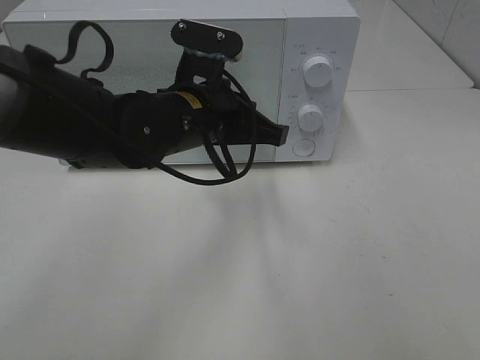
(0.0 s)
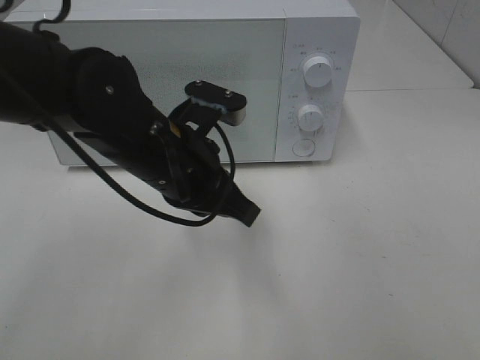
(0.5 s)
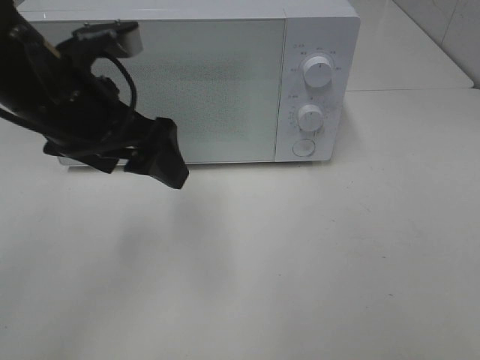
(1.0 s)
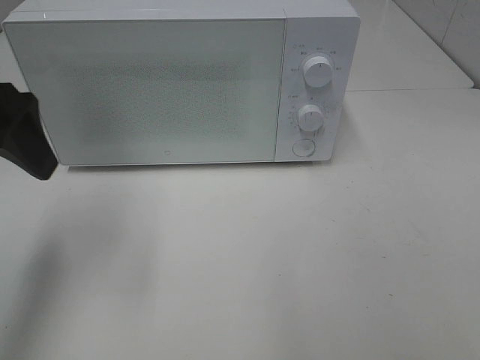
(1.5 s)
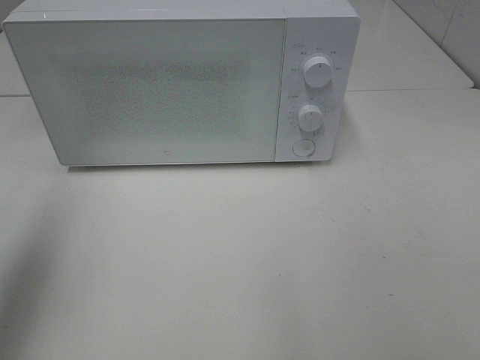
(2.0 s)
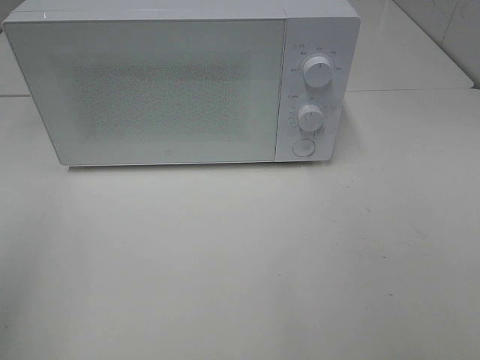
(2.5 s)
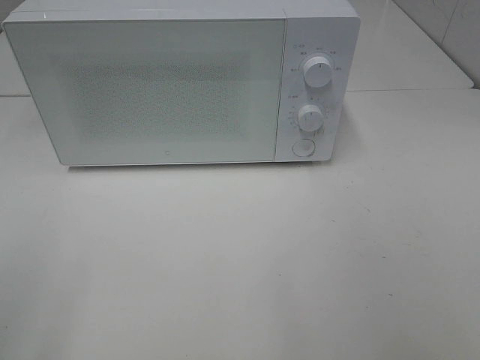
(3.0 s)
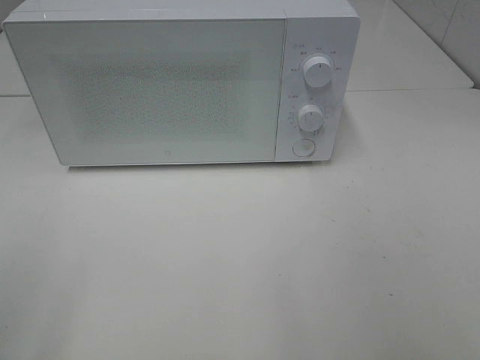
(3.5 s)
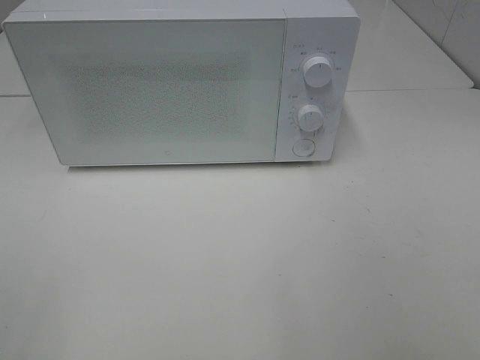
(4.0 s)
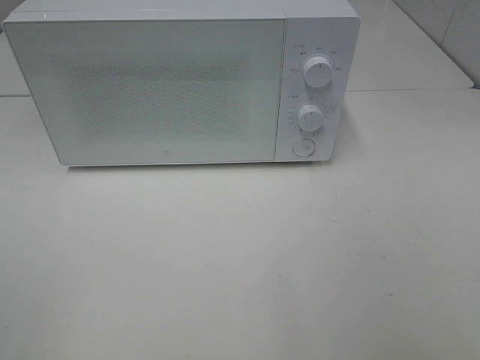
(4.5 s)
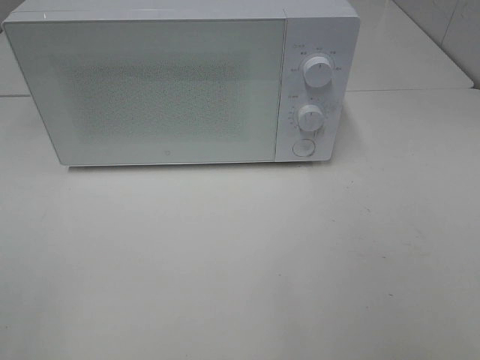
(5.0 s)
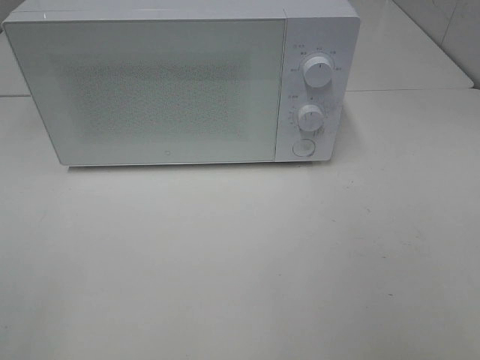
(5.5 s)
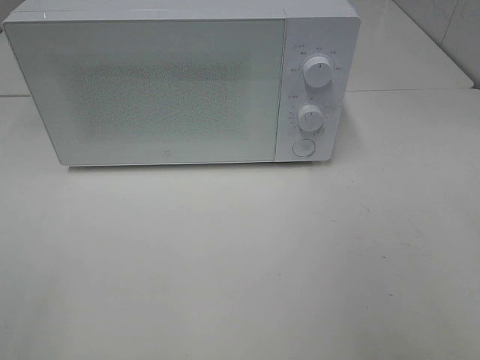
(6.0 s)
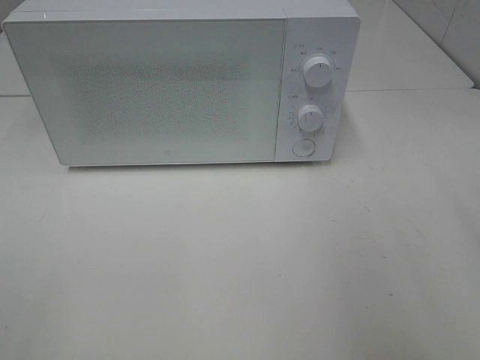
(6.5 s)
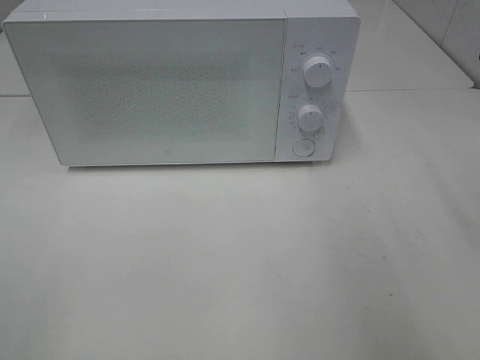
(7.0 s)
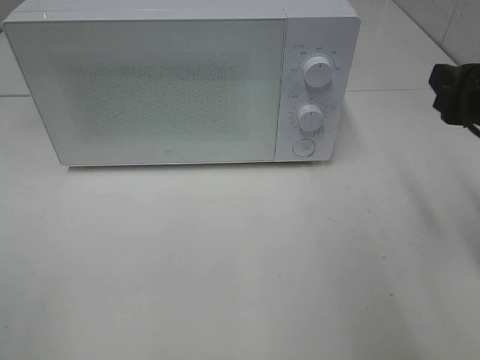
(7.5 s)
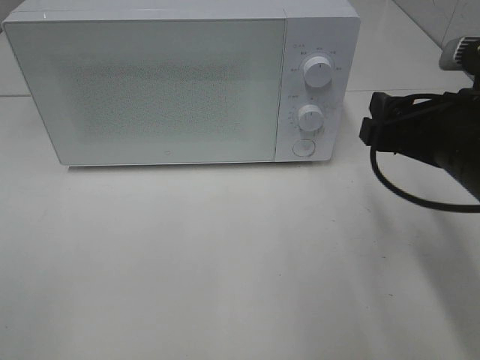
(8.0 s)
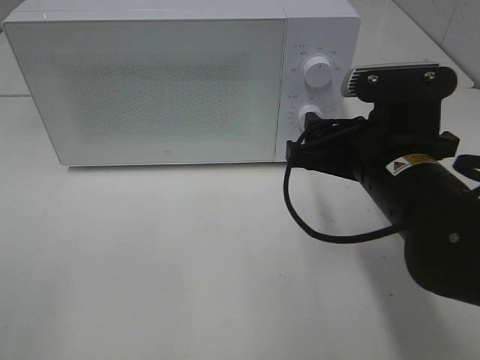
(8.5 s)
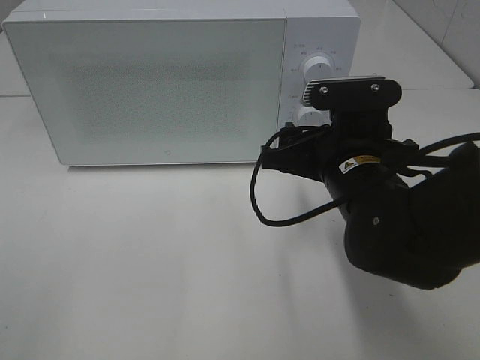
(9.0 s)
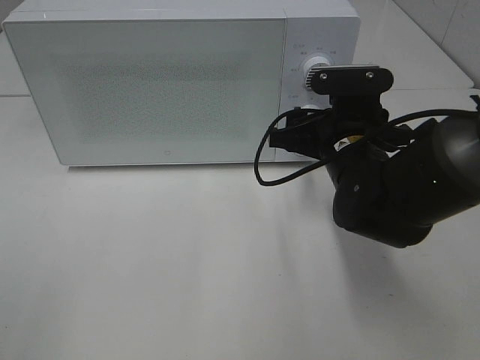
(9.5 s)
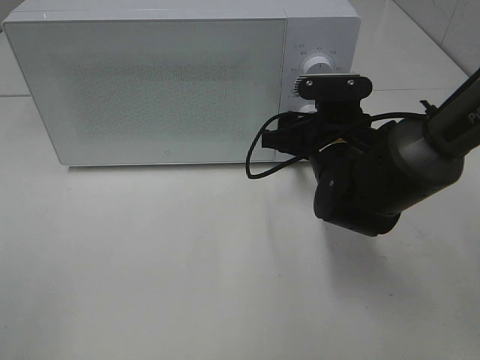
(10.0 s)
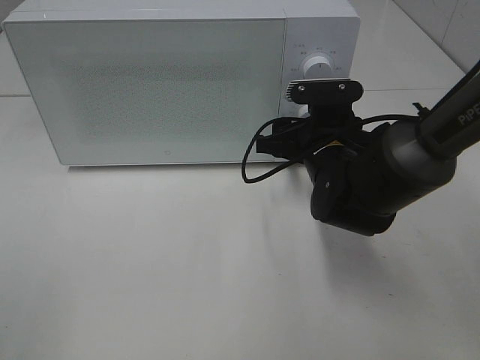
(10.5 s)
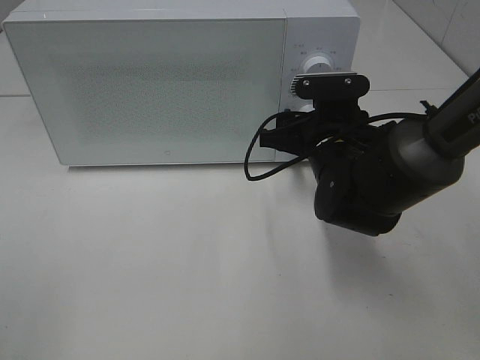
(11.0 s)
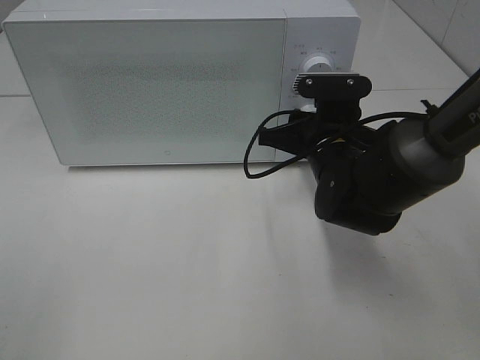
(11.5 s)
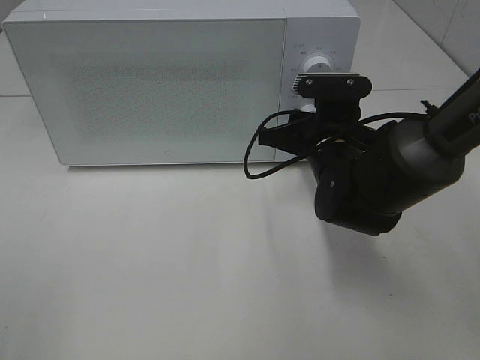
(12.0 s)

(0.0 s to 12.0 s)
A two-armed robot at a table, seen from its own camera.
Task of the whole recording: Heat Sandwich.
0.0 s - 2.0 s: The left gripper shifts approximately 35 cm to the left, upward and backward, and opens up.
2.0 s - 4.0 s: The left gripper heads backward, covering roughly 20 cm.
6.0 s - 8.0 s: The right gripper moves forward, downward and to the left, roughly 20 cm.
8.0 s - 10.0 s: The right gripper travels forward, downward and to the left by roughly 15 cm.
10.0 s - 12.0 s: The two grippers keep their place.

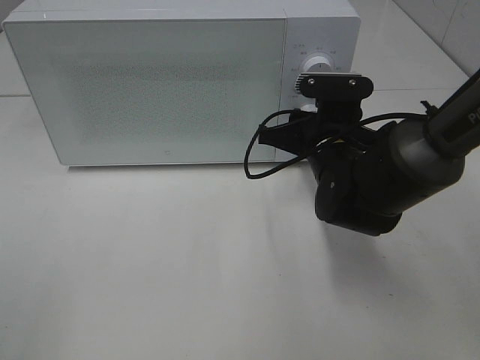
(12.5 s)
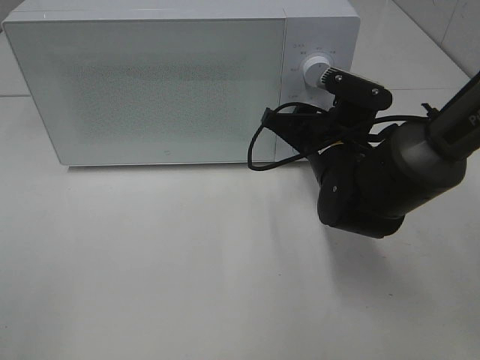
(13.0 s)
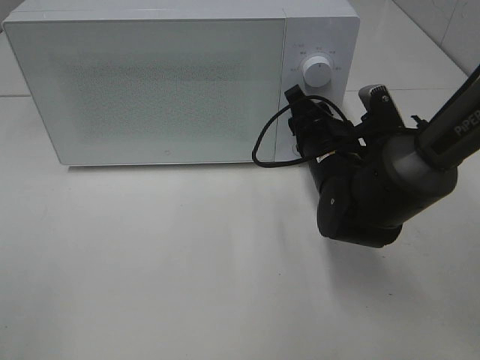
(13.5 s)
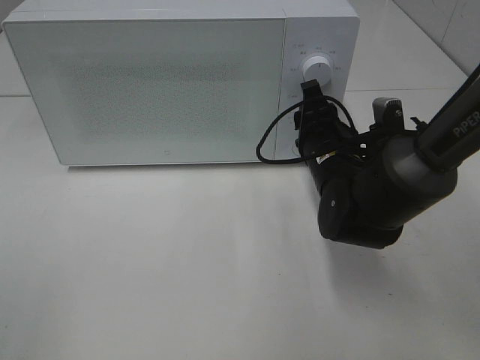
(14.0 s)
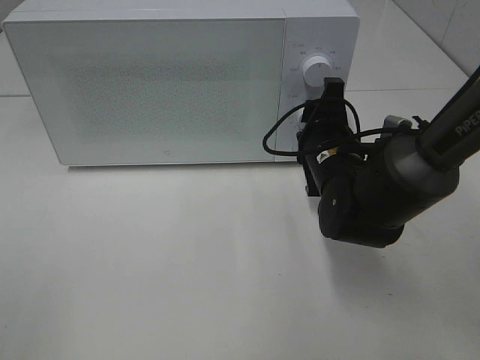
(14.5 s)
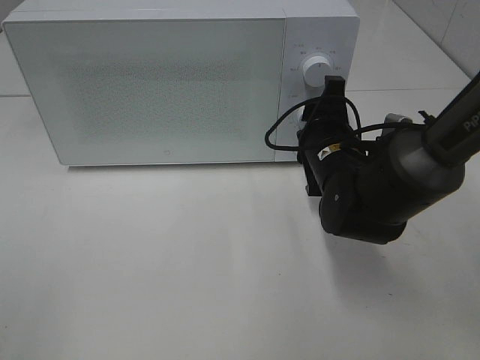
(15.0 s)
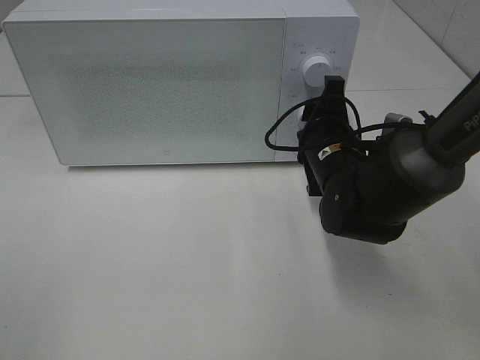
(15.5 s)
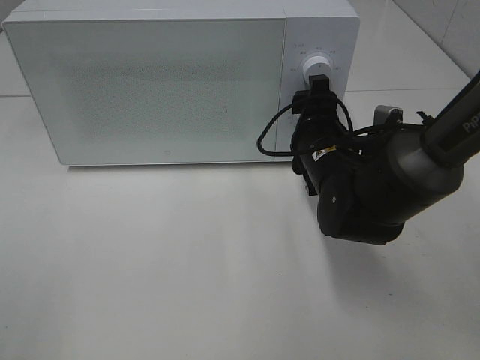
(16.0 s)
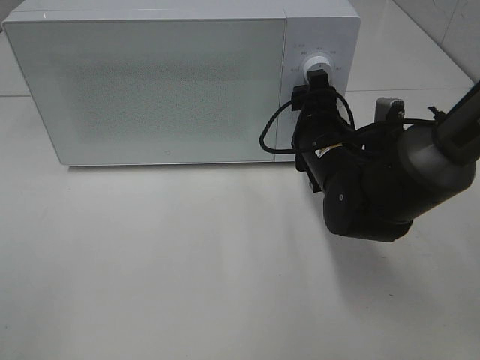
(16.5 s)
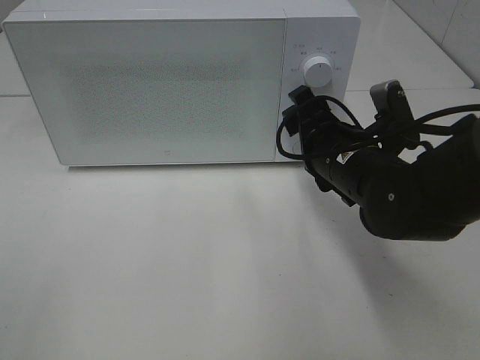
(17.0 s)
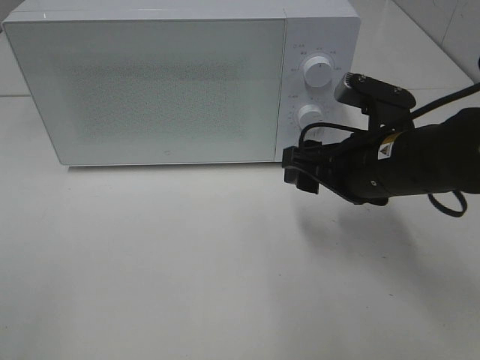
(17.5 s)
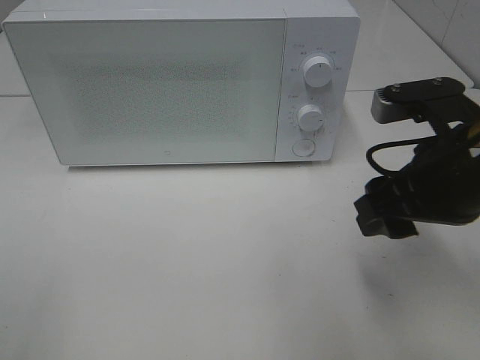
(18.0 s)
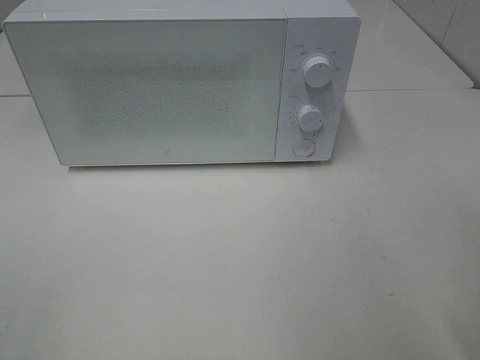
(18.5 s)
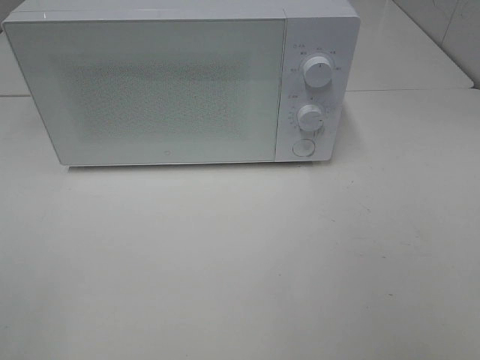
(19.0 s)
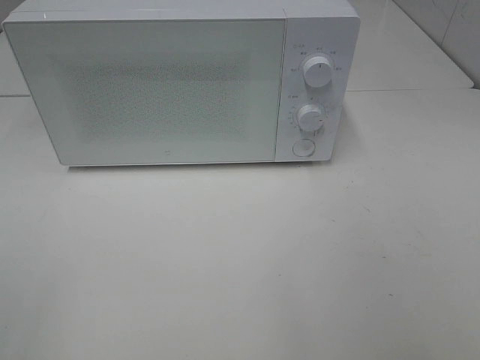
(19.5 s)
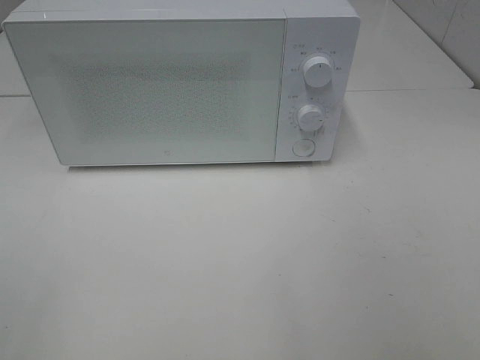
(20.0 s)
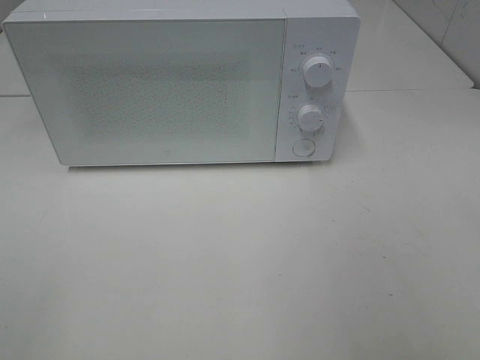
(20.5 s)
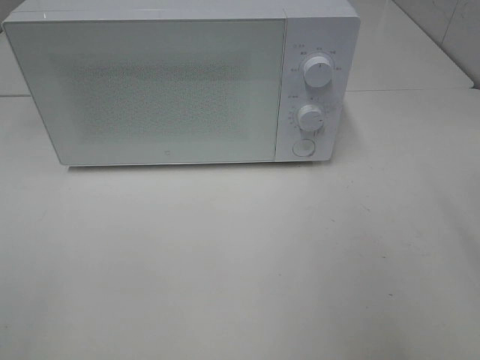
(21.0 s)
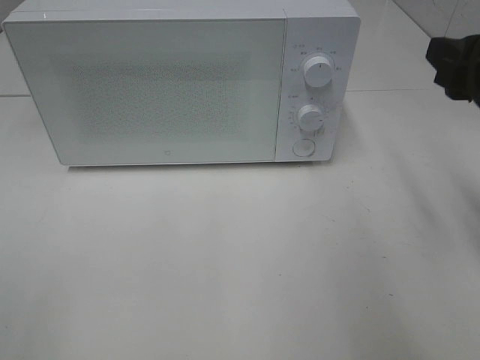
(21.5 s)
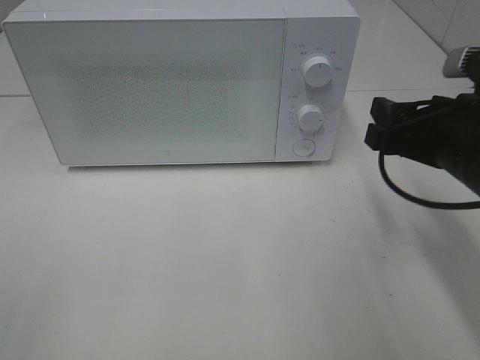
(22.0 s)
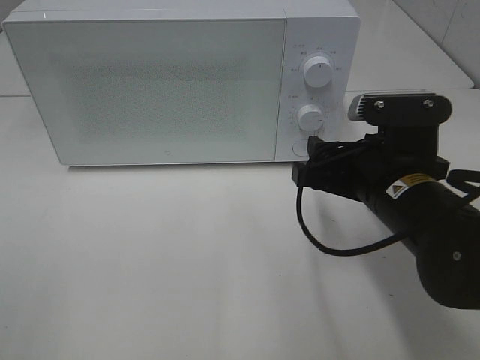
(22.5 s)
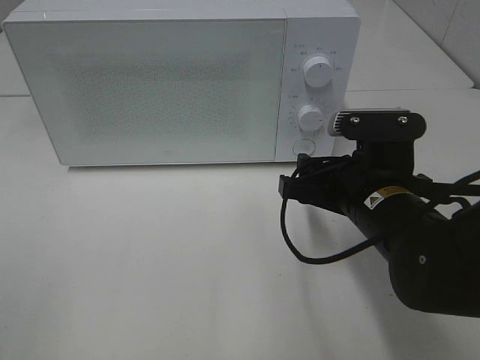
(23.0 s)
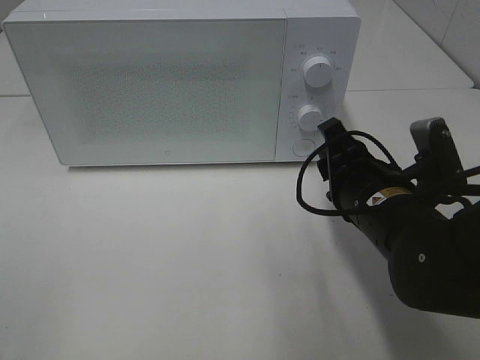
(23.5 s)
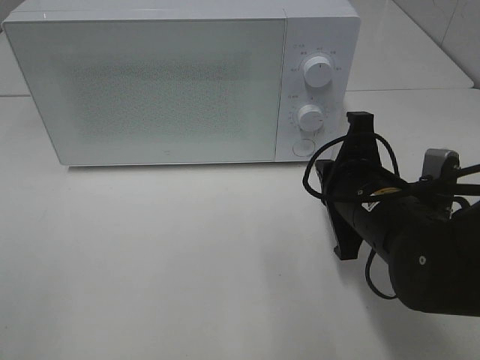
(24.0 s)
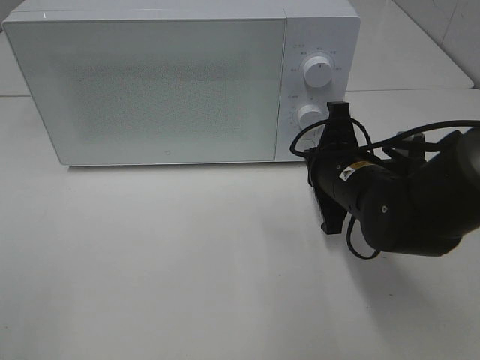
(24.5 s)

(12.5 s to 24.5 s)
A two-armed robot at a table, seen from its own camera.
Task of the whole recording: Heat Sandwich.
Step, 12.5 s - 17.0 s: Right hand: twist timer button.
14.5 s - 16.5 s: The grippers make only small movements.
16.5 s - 18.5 s: The right gripper travels backward, upward and to the right by some 30 cm.
18.5 s - 20.5 s: The right gripper shifts roughly 5 cm backward.
20.5 s - 22.5 s: The right gripper heads forward, downward and to the left, covering approximately 30 cm.
22.5 s - 24.5 s: The right gripper shifts about 5 cm forward, and closes.

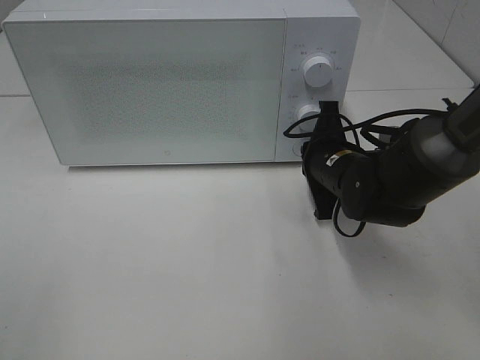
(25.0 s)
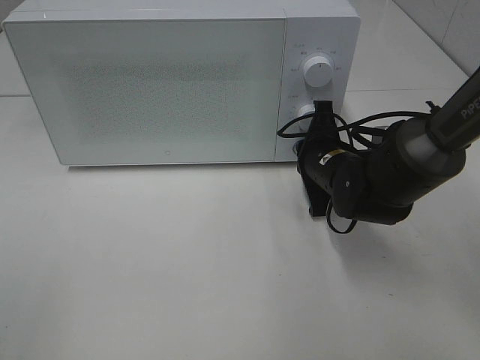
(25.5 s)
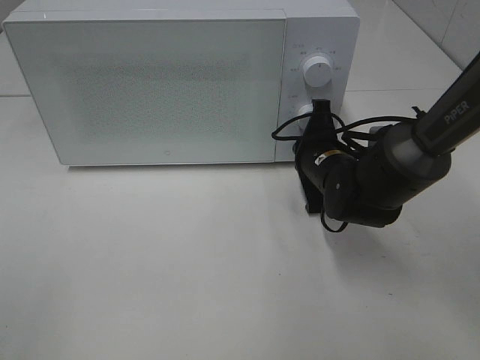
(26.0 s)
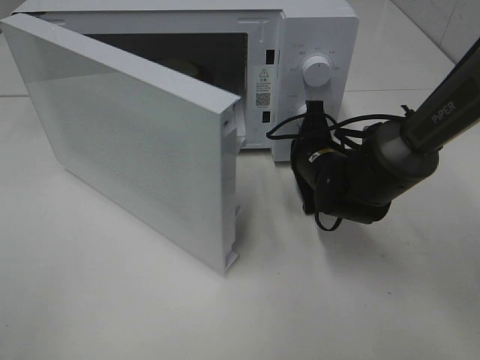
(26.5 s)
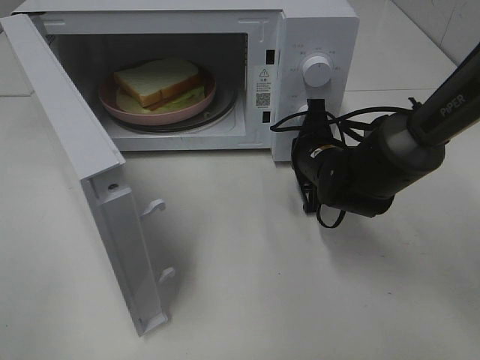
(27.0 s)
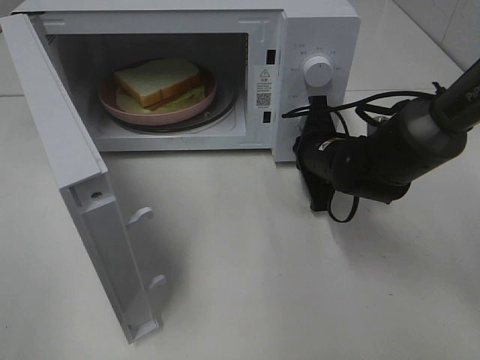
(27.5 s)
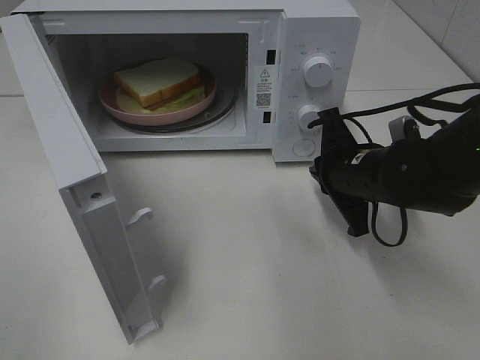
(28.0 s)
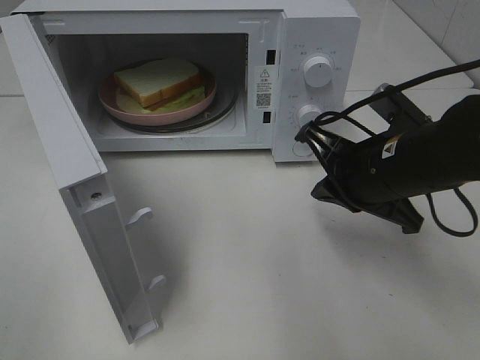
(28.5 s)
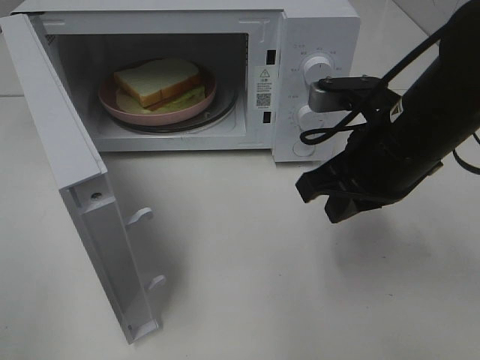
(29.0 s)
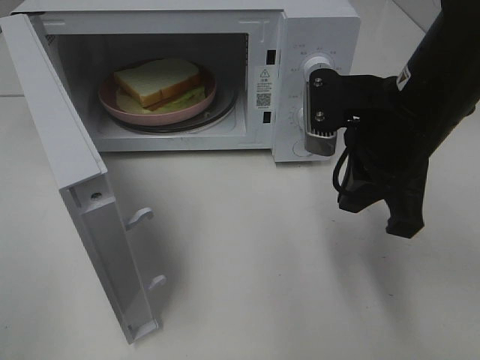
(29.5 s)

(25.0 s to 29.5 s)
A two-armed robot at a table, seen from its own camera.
Task of the whole recording: Heat Sandwich.
Step, 25.0 s - 29.0 s: Right hand: press the switch.
27.0 s - 29.5 s: The right gripper travels upward and backward by approximately 20 cm.
